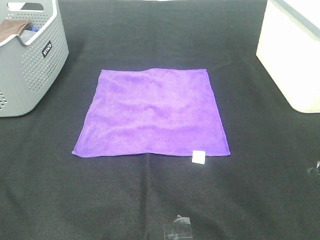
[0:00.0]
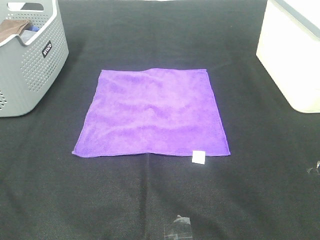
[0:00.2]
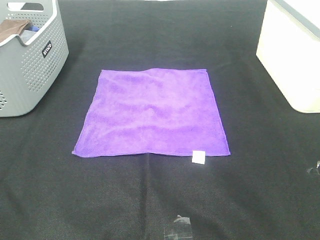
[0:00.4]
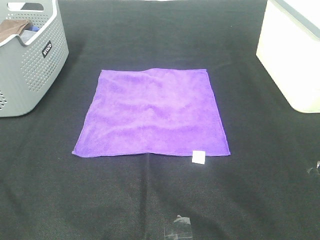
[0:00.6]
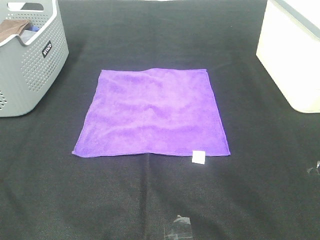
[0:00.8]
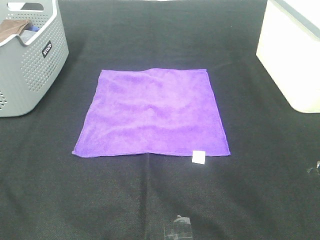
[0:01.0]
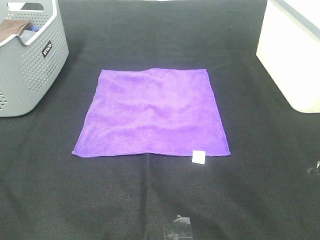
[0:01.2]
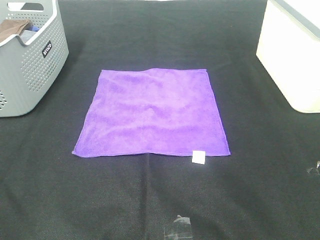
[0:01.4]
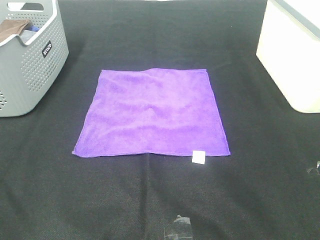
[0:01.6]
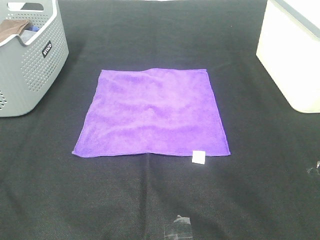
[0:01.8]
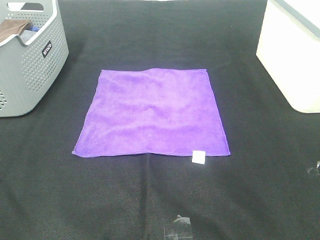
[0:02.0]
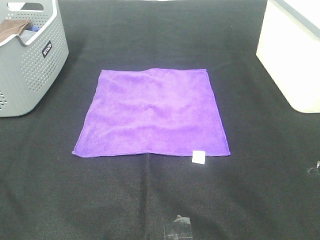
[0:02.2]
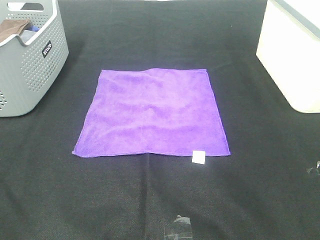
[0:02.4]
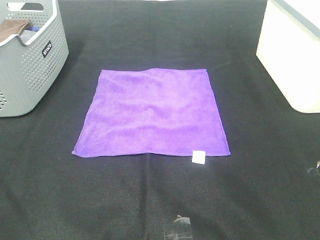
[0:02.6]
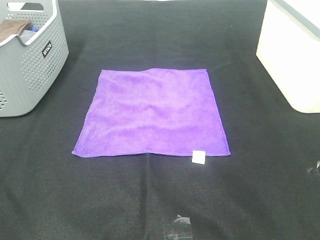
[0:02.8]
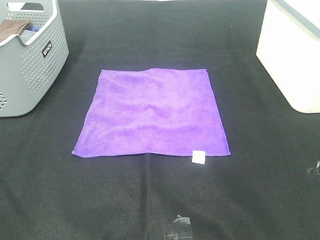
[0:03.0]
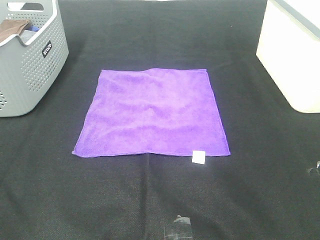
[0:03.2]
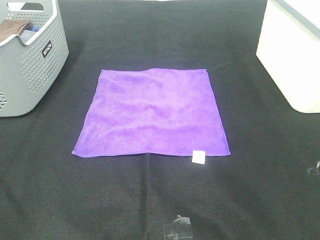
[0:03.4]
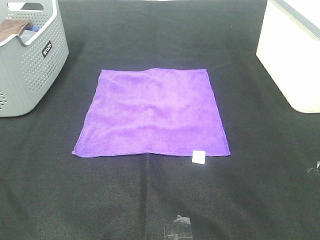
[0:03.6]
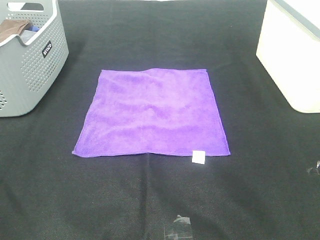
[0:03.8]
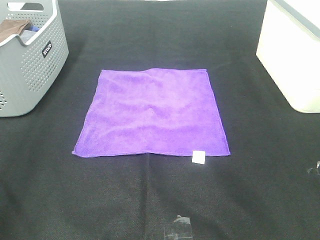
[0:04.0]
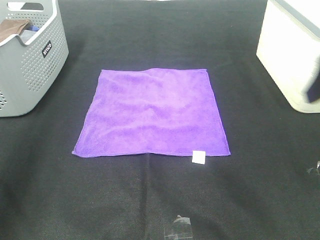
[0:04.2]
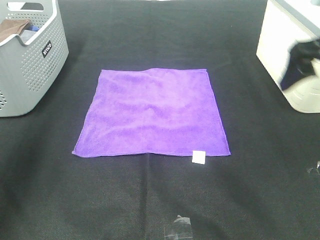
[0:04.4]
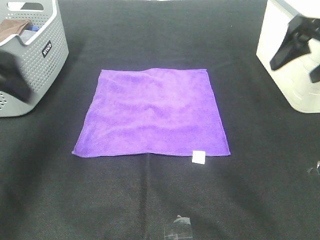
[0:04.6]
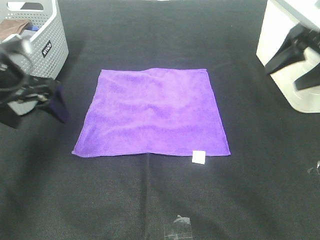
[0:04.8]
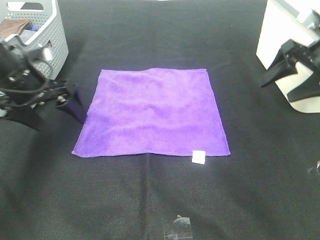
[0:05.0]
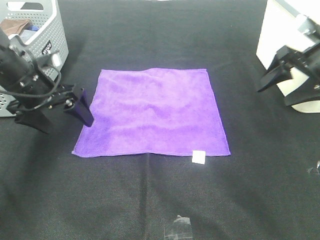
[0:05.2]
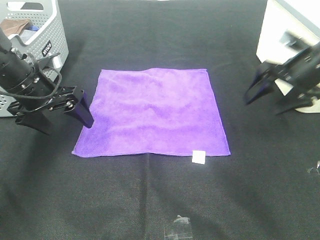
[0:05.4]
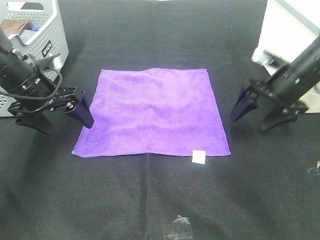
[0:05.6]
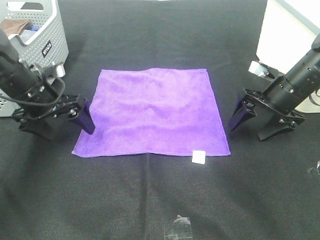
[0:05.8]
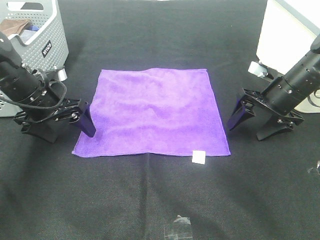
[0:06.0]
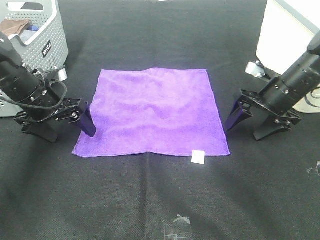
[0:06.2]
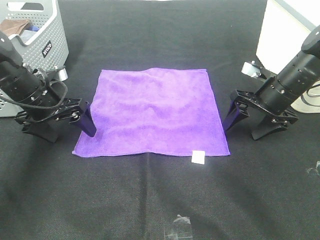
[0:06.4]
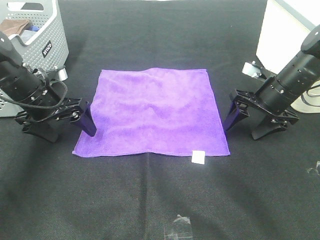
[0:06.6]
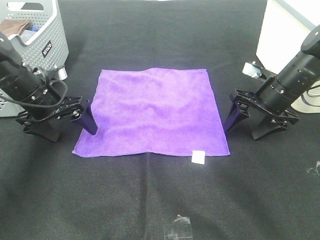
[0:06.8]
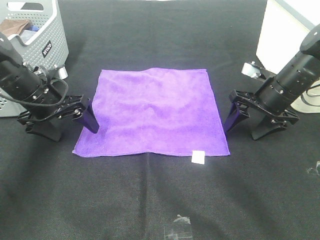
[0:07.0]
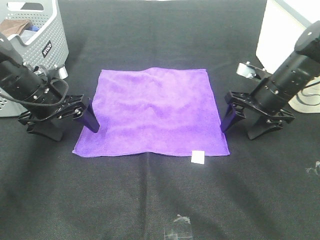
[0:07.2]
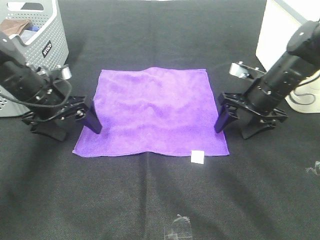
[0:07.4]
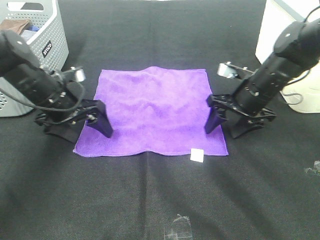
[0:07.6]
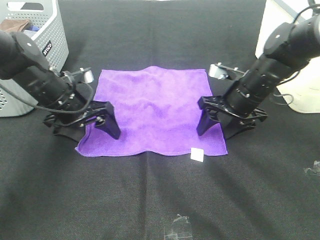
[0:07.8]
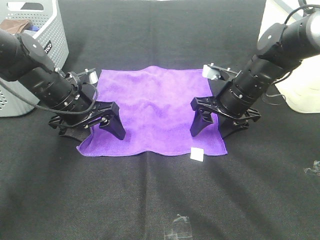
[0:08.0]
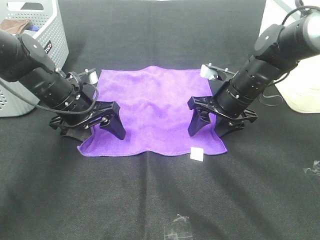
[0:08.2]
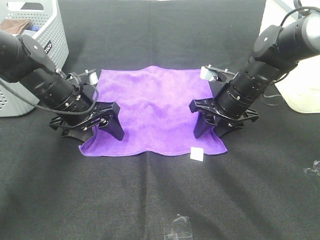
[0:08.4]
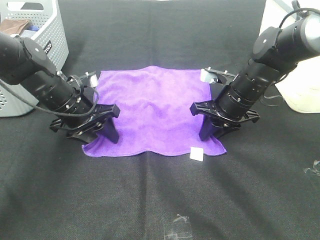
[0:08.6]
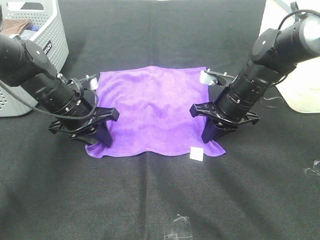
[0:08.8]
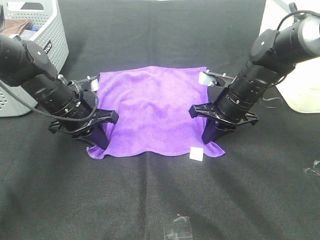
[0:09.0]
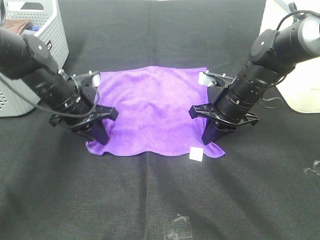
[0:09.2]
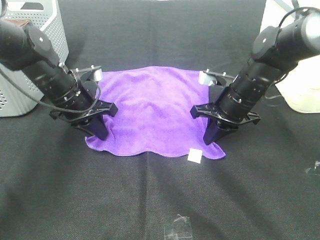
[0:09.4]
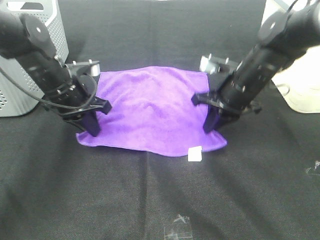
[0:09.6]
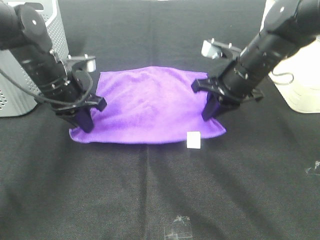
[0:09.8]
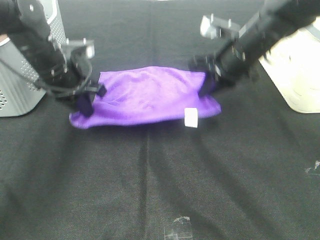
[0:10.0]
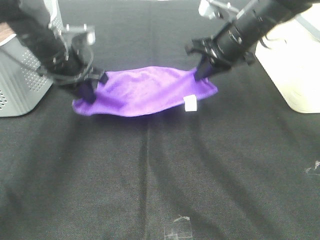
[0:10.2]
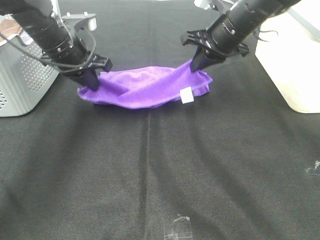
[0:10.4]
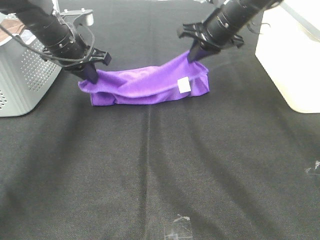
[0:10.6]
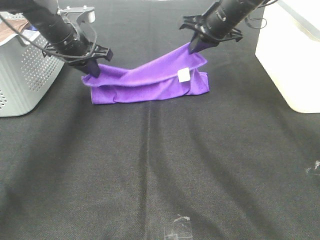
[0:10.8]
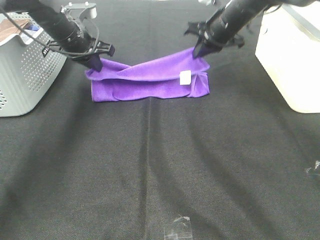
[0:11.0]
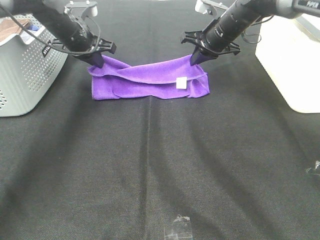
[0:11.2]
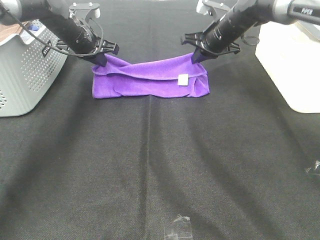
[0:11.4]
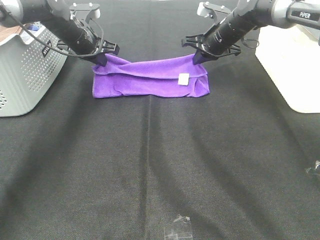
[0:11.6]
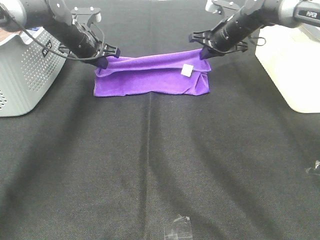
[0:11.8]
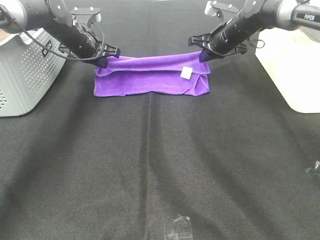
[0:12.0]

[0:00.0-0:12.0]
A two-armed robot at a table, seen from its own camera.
Task of the whole recording: Fold towels.
Step, 0:00.0 to 0:09.0: Left hand: grab the bottom left corner of purple towel.
Step, 0:00.0 to 0:09.0: Right hand: grab the bottom right corner of purple towel.
0:00.0 to 0:03.0: Both grippers stay about where they are.
0:03.0 to 0:04.4: Both grippers travel together forward, about 30 cm.
0:04.4 to 0:06.0: The two grippers go about 20 cm downward and forward.
0:06.0 to 0:07.6: The right gripper heads to the left, covering some 5 cm.
0:07.6 to 0:09.0: The left gripper closes up, while the right gripper closes its fingers.
0:09.0 to 0:10.4: The two grippers go approximately 15 cm upward and forward.
0:10.4 to 0:12.0: The left gripper moves forward, approximately 10 cm, while the right gripper is displaced forward and downward by roughly 15 cm.

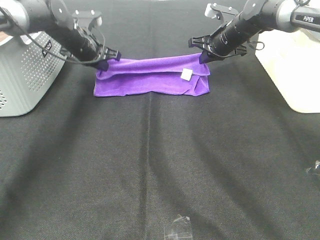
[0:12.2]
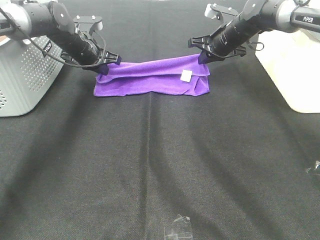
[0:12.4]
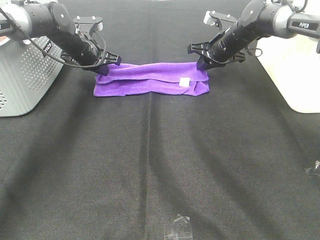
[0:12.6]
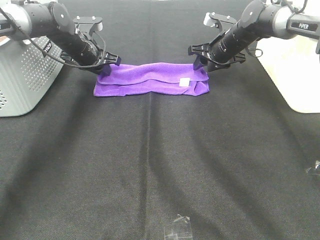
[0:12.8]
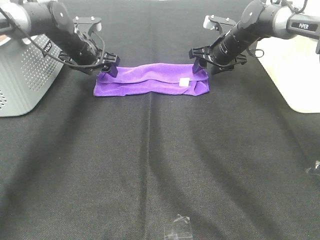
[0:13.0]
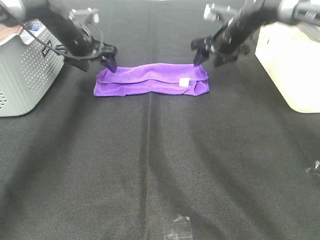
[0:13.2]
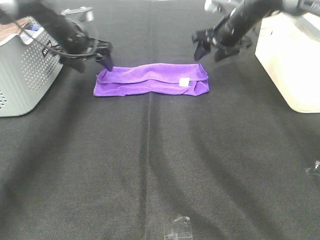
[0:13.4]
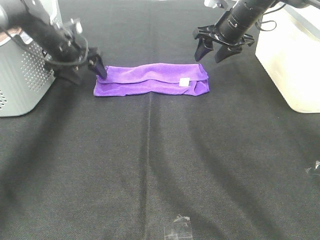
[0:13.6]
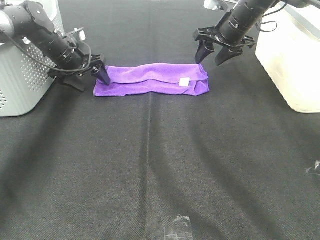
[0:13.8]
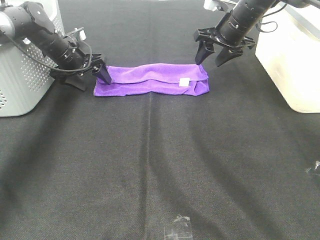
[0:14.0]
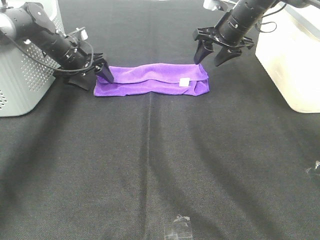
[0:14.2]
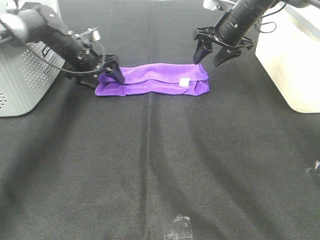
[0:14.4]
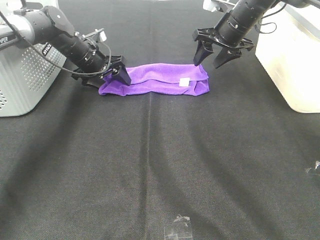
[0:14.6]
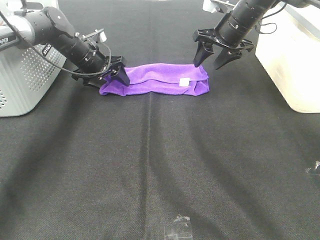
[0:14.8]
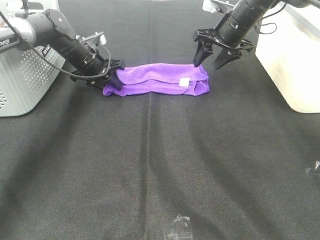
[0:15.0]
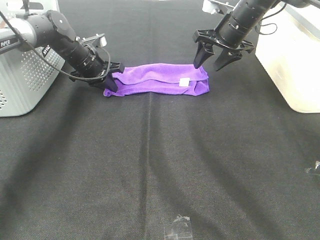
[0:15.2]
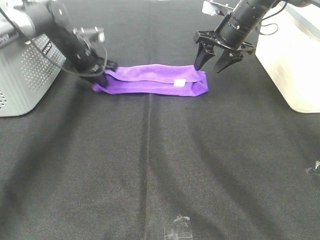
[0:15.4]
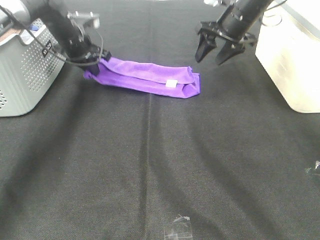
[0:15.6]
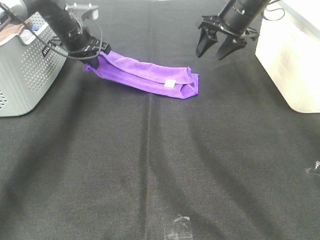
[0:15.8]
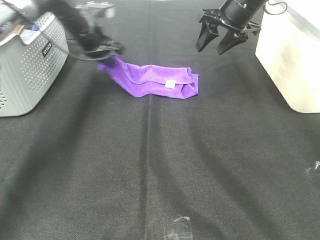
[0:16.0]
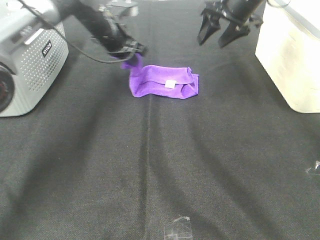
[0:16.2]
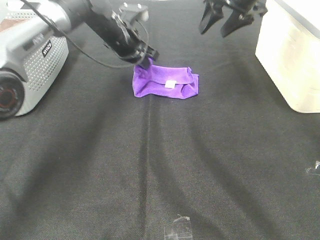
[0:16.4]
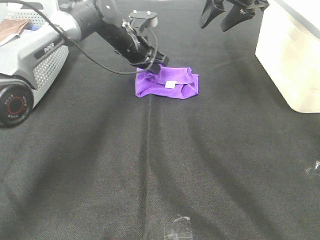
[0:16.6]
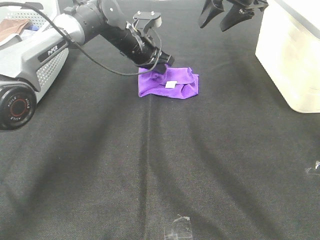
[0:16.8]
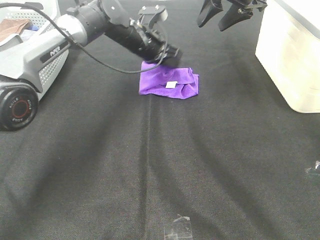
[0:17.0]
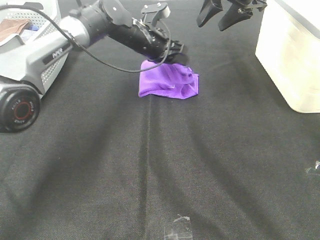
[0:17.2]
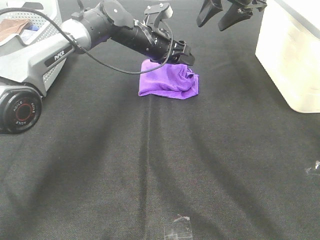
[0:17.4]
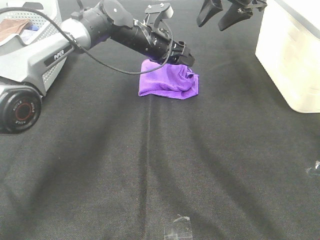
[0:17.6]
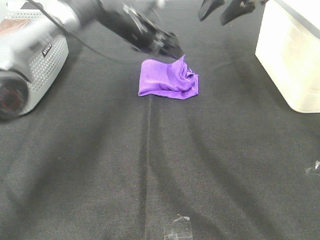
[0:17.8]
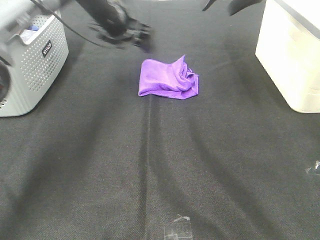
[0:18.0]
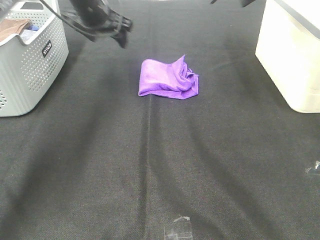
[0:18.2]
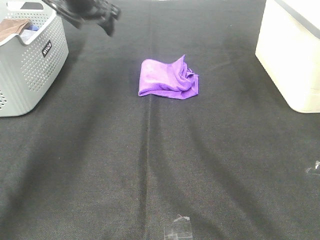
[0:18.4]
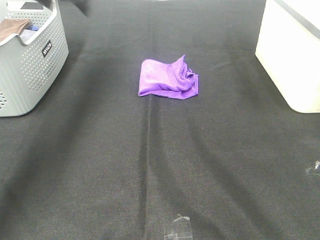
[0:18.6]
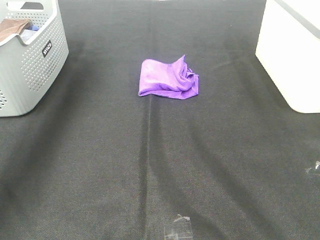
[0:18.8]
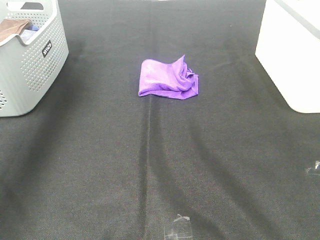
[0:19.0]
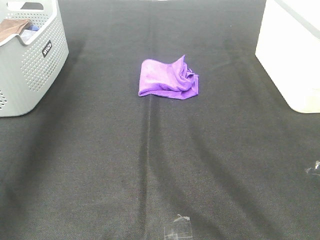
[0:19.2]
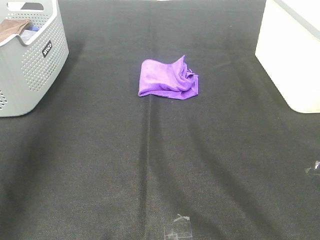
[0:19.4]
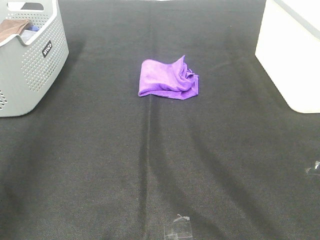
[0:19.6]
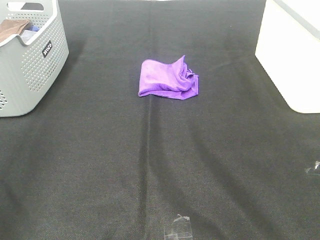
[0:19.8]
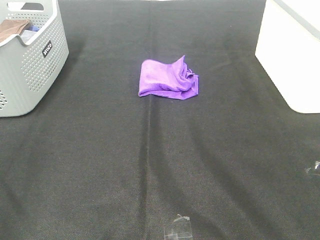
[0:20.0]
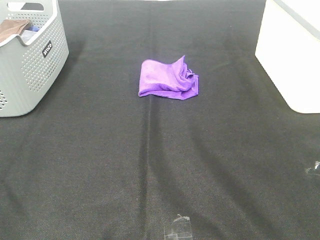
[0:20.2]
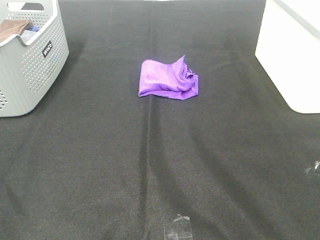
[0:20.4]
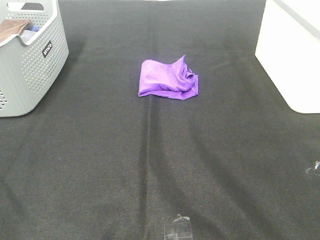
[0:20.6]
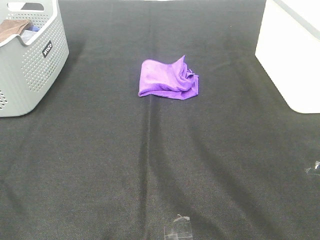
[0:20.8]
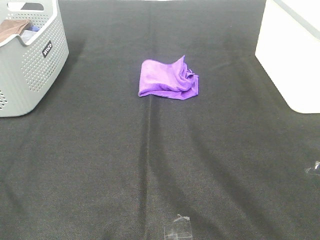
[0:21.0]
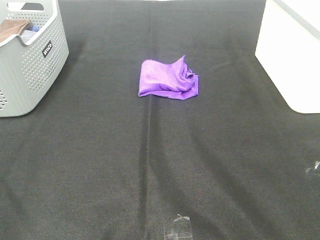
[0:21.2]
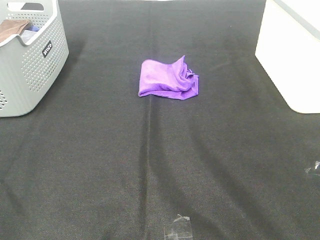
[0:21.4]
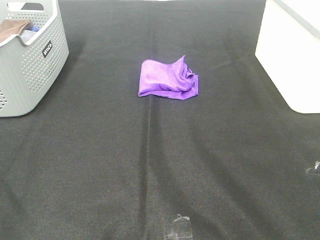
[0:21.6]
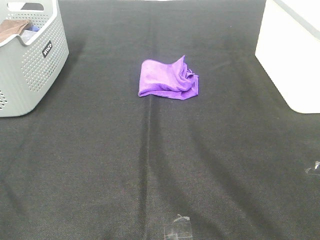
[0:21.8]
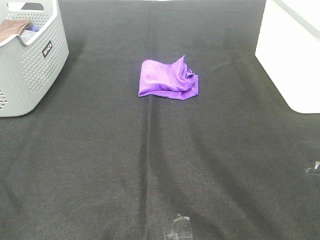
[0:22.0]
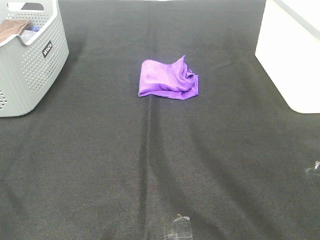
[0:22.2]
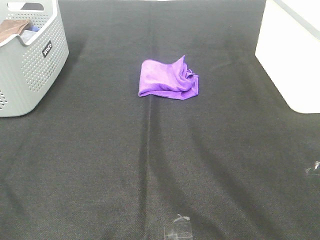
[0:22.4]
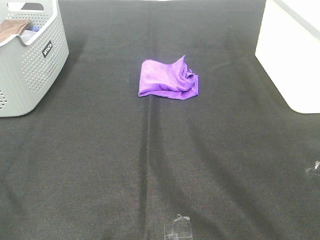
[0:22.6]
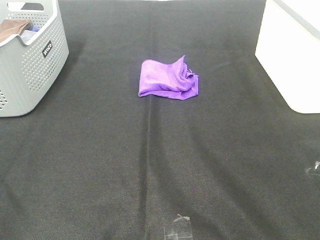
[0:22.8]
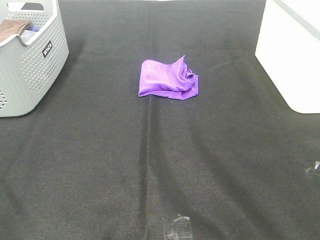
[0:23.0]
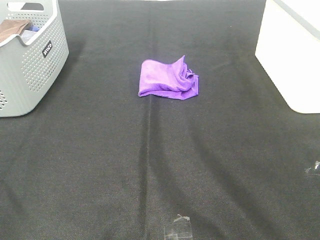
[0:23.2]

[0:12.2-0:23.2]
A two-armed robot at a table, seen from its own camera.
Task of the whole recording: Fold towels.
Step, 0:12.8 to 0:16.8: Left hand: fold the purple towel from left to right.
0:12.2 to 0:13.8: The left gripper opens. The right gripper shifts by about 5 cm, and opens up.
0:13.8 to 0:15.4: The left gripper closes up.
0:15.4 to 0:17.0: The left gripper travels to the right by roughly 15 cm, while the right gripper shifts some 10 cm upward.
0:17.0 to 0:18.4: The left gripper heads to the left and upward, covering about 20 cm, and opens up; the right gripper heads upward, covering approximately 10 cm.
0:18.4 to 0:20.0: The two grippers go some 50 cm backward.
